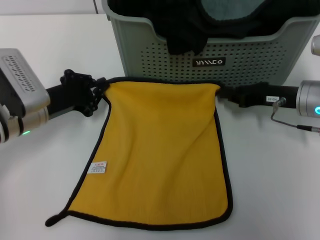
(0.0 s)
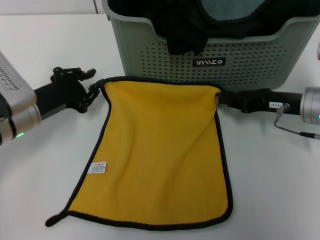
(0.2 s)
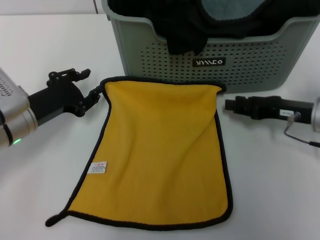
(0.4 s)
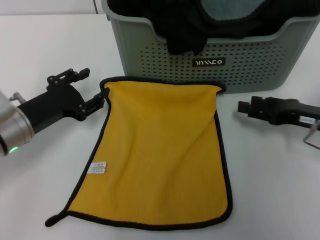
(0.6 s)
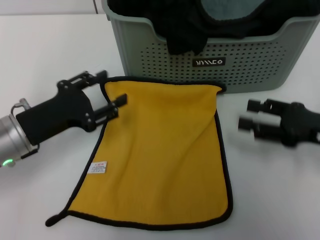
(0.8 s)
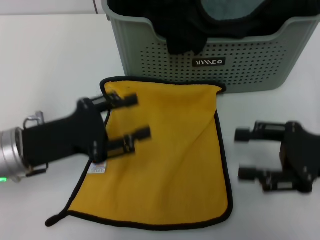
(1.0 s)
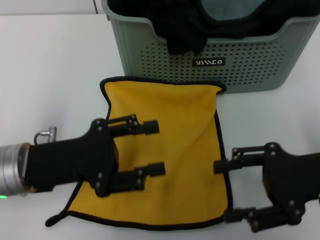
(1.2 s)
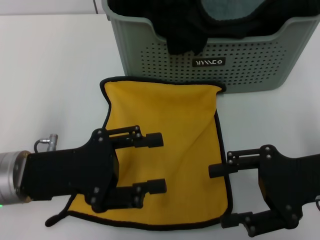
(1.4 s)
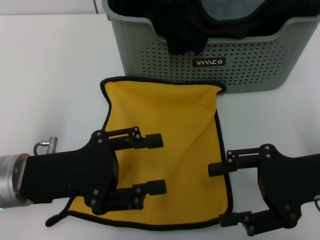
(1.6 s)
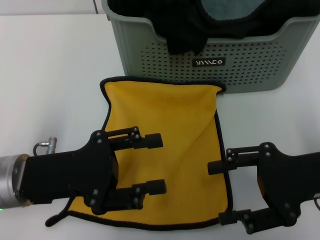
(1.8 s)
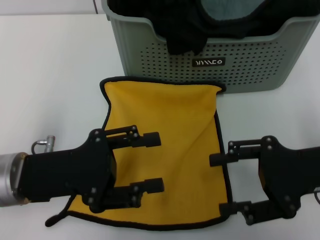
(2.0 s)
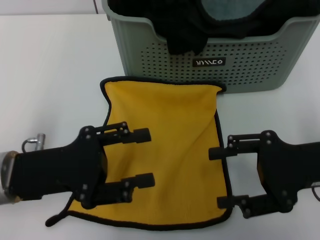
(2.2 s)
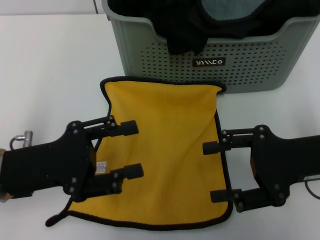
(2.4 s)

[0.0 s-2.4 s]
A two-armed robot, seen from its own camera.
Task of the whole recording: pick up the towel from the storage box and lay it flat on the table.
0.0 to 1.2 s: The right gripper is displaced backward and upward by roughly 15 cm, and opens up. The left gripper heads backward, covering roughly 10 cm, and opens.
1.2 to 2.4 s: The grippers stay close to where they were, moving slightly.

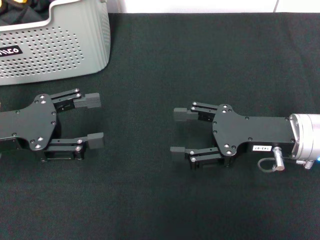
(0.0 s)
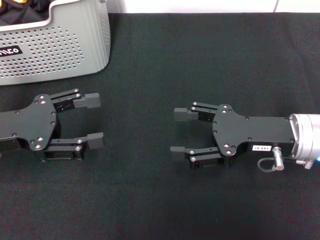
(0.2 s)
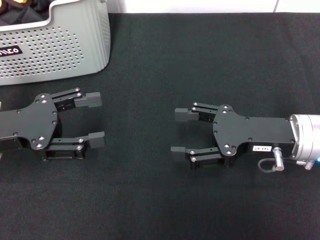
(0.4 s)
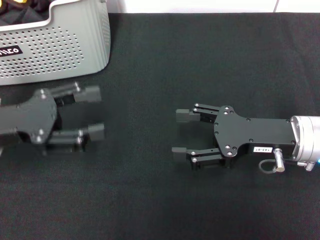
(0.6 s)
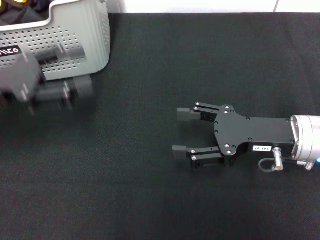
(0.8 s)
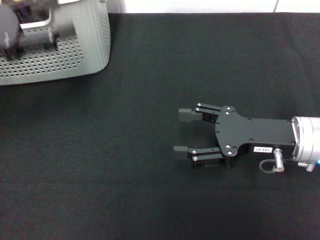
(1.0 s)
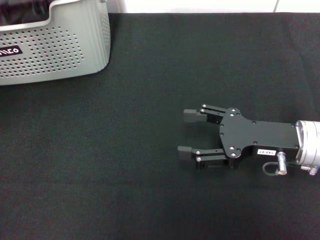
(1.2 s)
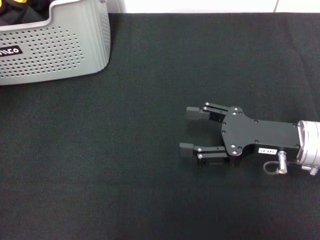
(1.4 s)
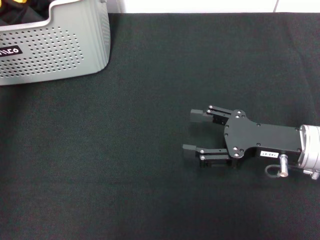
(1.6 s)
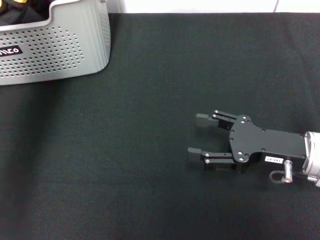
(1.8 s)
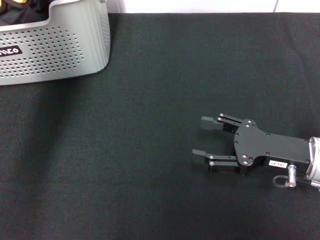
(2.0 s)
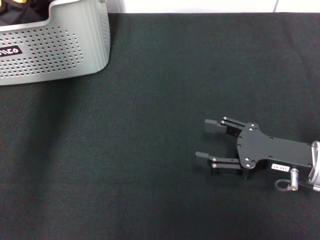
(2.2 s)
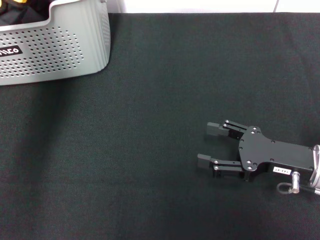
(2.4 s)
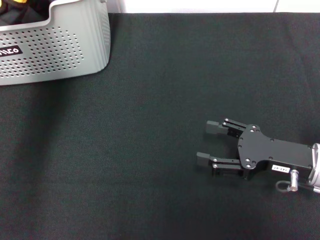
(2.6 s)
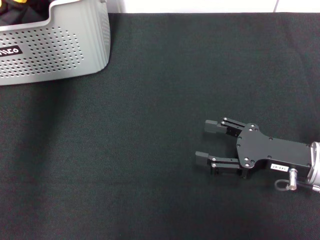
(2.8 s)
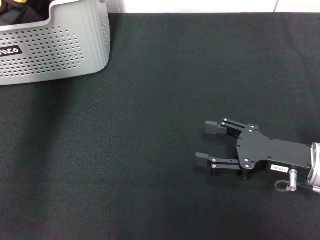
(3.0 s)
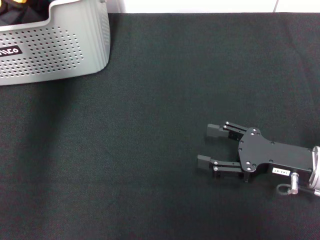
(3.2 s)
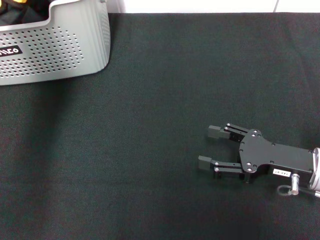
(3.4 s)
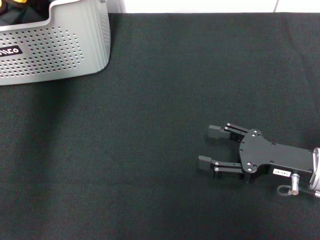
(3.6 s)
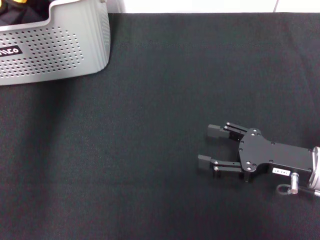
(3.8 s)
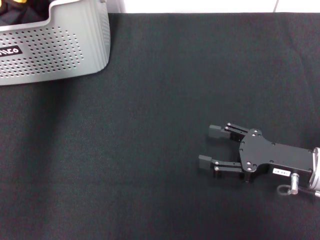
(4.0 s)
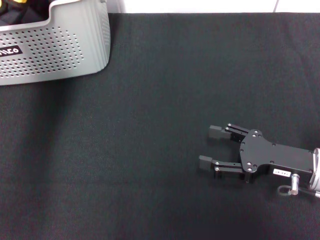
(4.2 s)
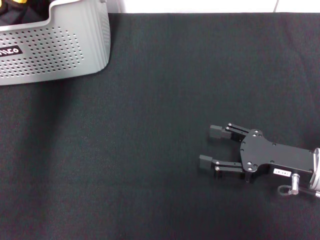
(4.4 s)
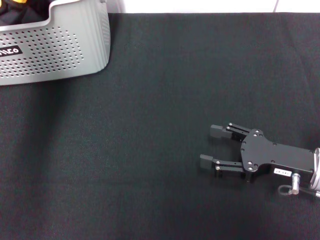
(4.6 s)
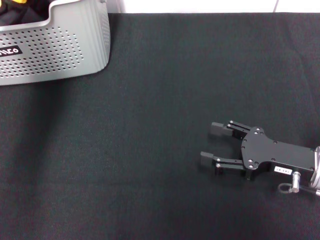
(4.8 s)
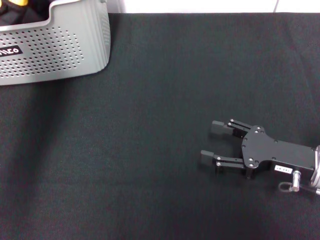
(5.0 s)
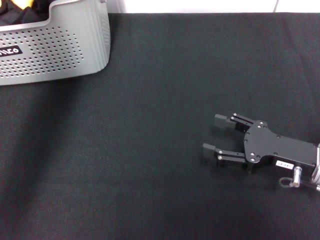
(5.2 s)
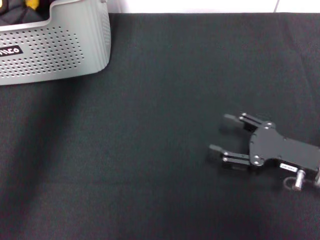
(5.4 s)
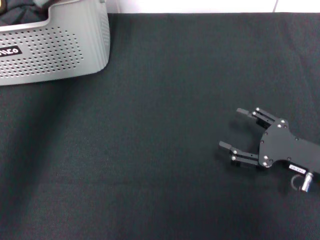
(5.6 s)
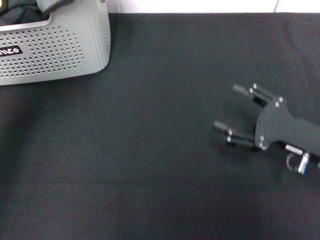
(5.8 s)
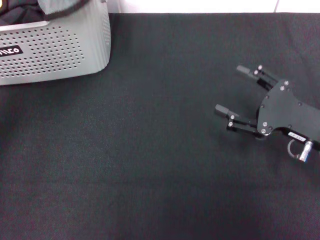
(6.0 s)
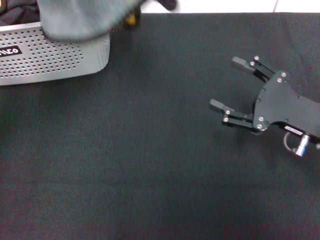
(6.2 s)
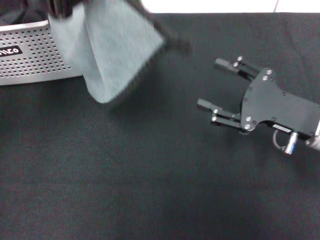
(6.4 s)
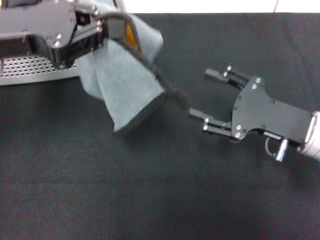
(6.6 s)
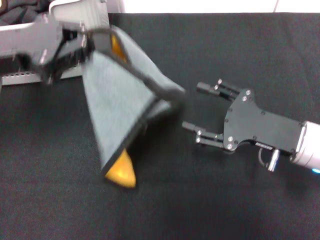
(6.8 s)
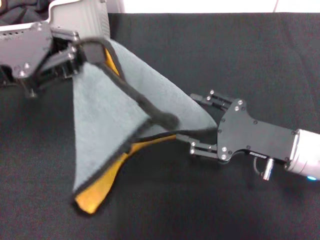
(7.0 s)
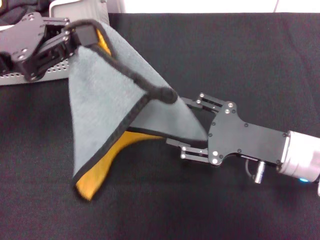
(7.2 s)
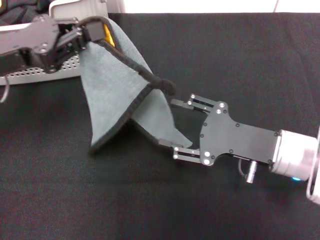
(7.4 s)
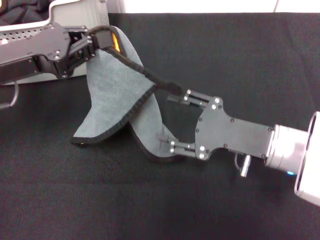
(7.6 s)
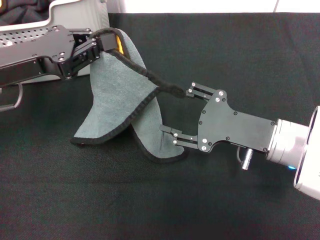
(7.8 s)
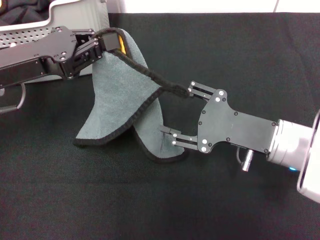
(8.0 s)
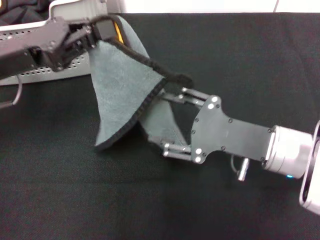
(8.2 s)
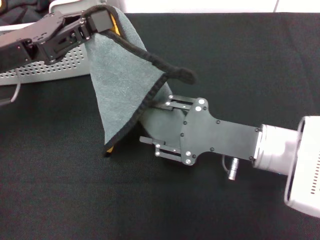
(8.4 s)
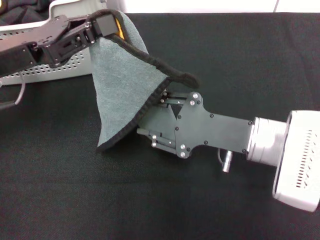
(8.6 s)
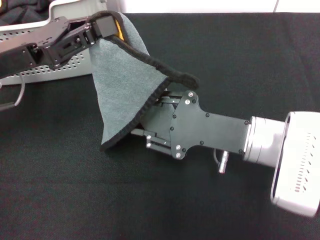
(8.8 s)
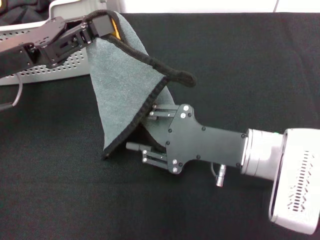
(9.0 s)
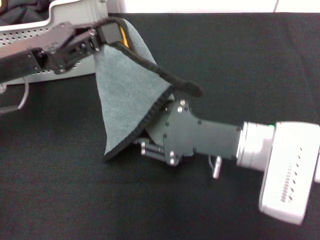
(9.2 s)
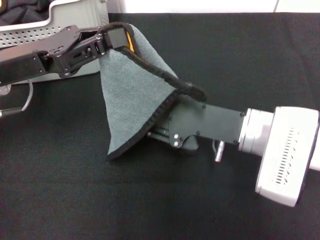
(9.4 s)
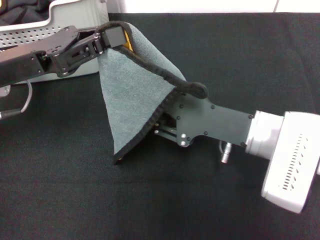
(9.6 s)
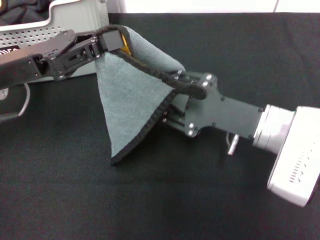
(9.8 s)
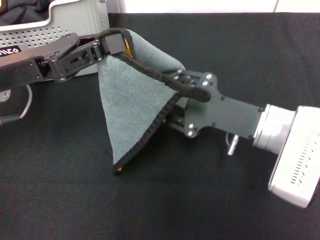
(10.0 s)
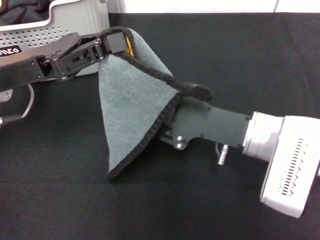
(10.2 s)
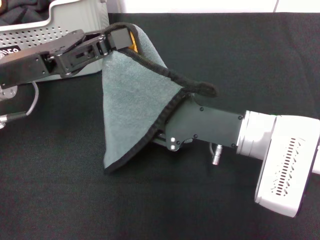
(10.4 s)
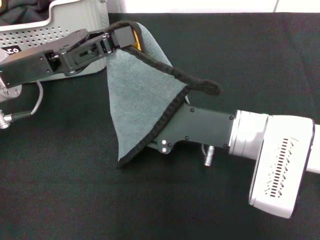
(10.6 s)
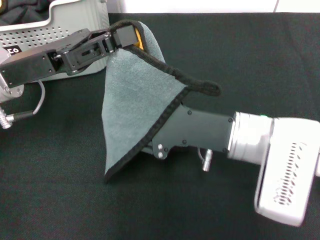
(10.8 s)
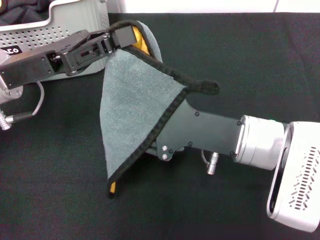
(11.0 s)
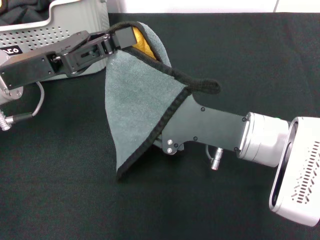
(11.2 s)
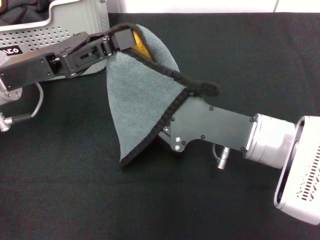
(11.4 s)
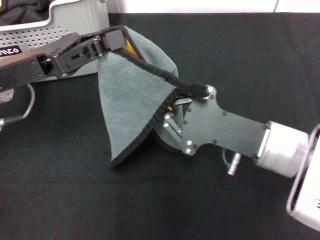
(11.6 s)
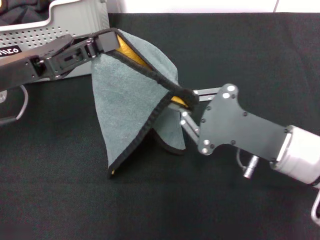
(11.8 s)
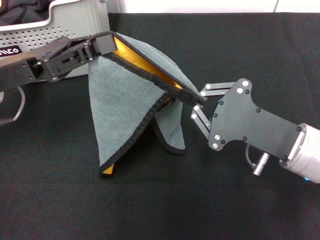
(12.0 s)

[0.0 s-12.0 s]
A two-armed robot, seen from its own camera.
Task of the whole recording: pick up the towel from the storage box and lay it flat on the black tablecloth.
Step, 0.0 to 4.4 s: Pick up a towel with the left gripper.
Step, 4.6 to 11.6 s: Spread the towel flat with the left gripper.
0.0 to 1.6 s: The left gripper travels upward and forward by roughly 20 cm.
1.6 to 3.0 s: The left gripper travels forward and to the right by roughly 10 cm.
4.4 to 6.0 s: The left gripper shifts roughly 20 cm backward and upward, and closes up.
6.0 to 7.6 s: The left gripper moves downward, some 15 cm. The right gripper heads to the left, covering about 5 cm.
10.4 to 12.0 s: The right gripper is displaced to the right by approximately 5 cm, and closes up.

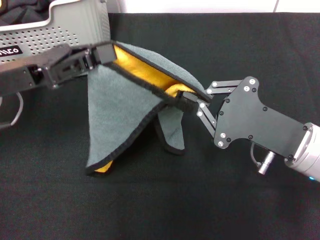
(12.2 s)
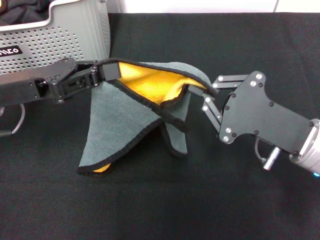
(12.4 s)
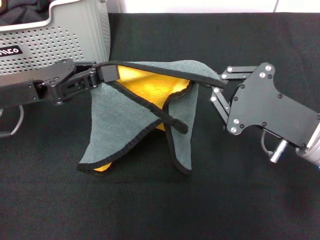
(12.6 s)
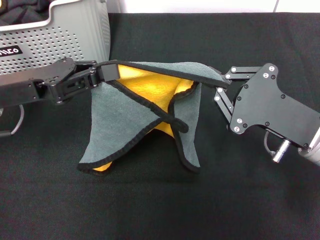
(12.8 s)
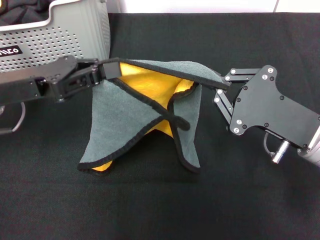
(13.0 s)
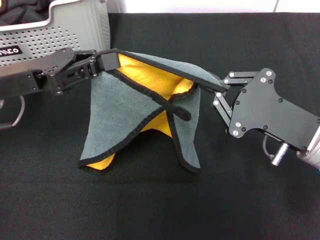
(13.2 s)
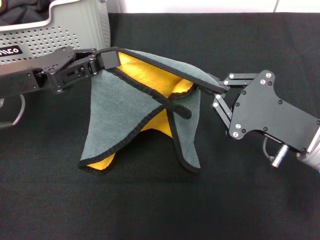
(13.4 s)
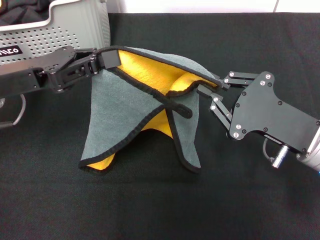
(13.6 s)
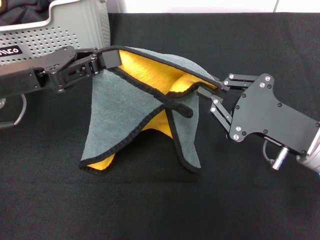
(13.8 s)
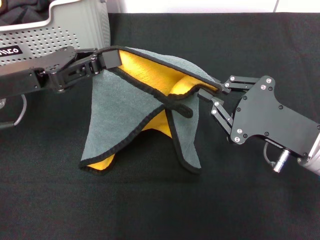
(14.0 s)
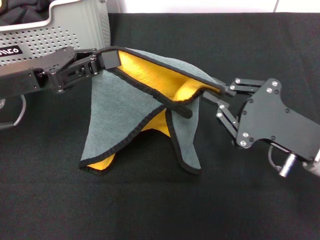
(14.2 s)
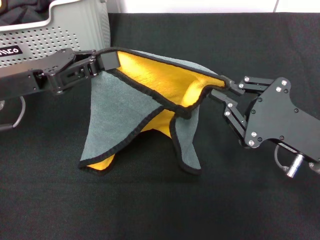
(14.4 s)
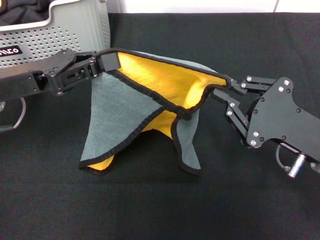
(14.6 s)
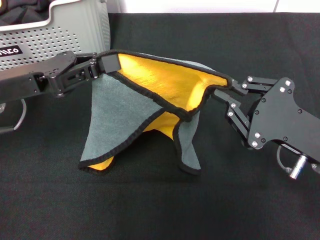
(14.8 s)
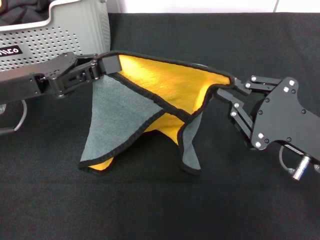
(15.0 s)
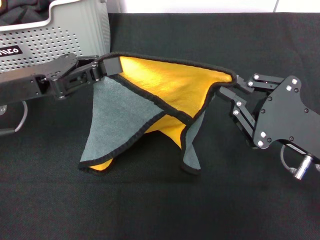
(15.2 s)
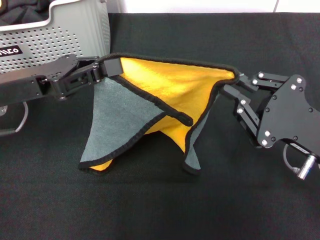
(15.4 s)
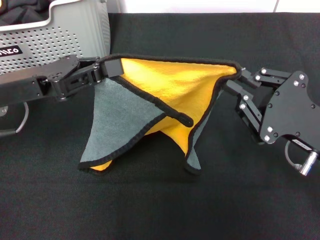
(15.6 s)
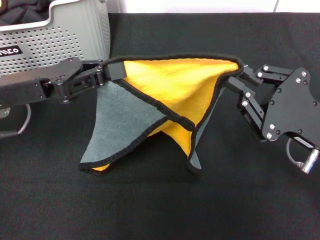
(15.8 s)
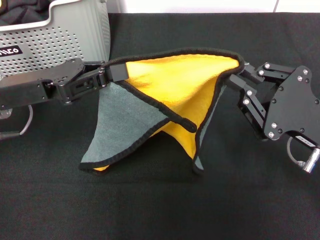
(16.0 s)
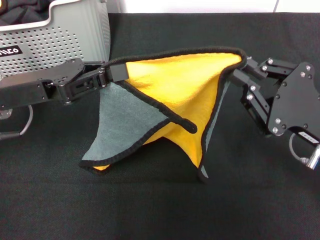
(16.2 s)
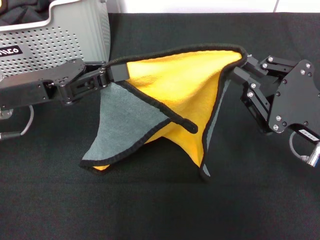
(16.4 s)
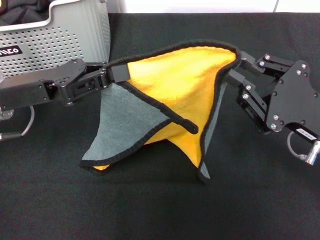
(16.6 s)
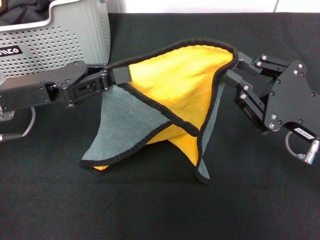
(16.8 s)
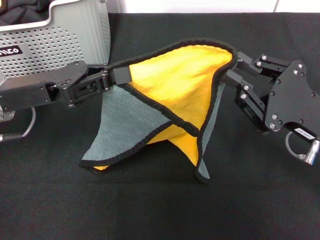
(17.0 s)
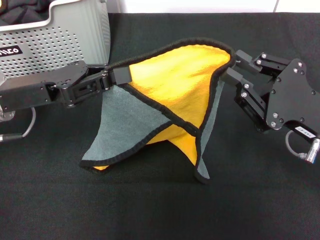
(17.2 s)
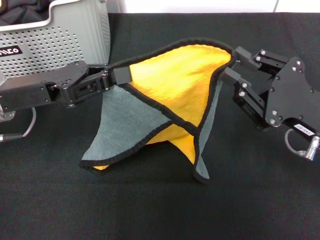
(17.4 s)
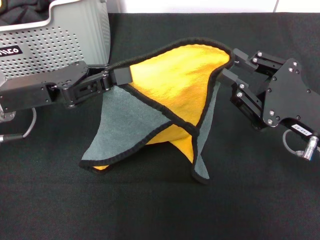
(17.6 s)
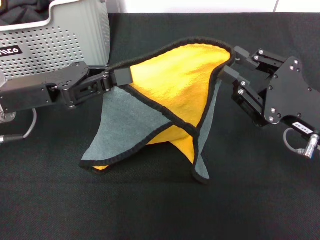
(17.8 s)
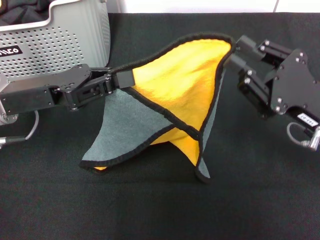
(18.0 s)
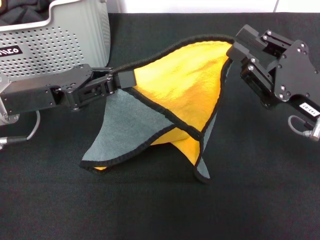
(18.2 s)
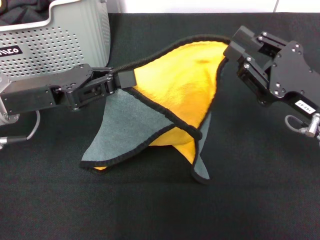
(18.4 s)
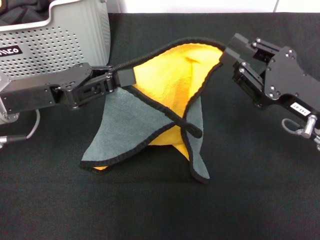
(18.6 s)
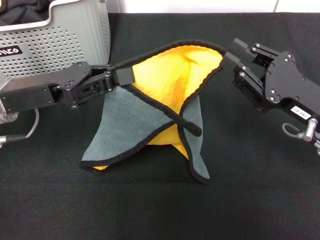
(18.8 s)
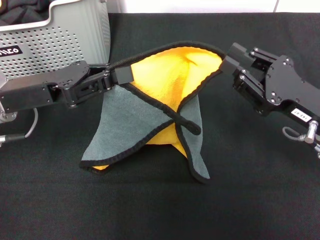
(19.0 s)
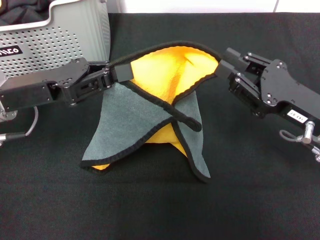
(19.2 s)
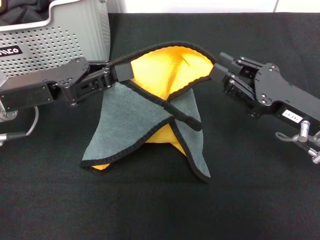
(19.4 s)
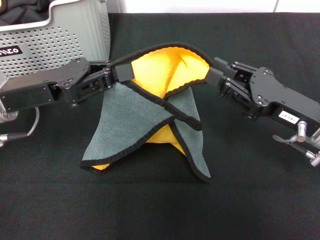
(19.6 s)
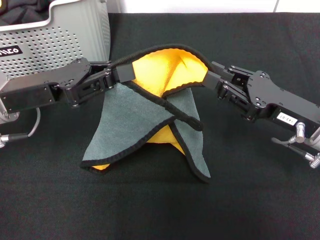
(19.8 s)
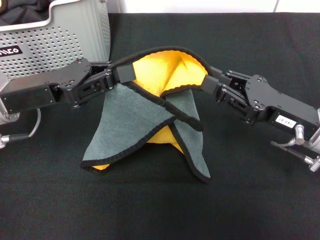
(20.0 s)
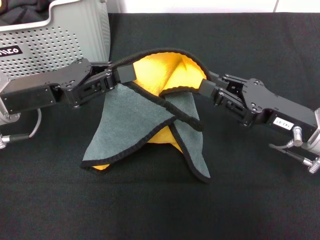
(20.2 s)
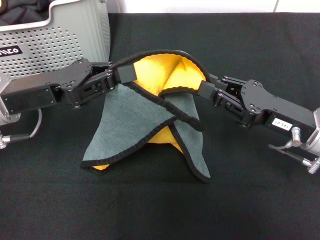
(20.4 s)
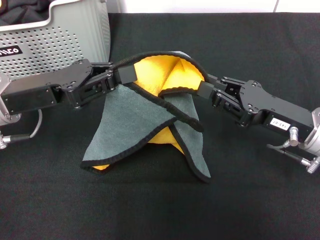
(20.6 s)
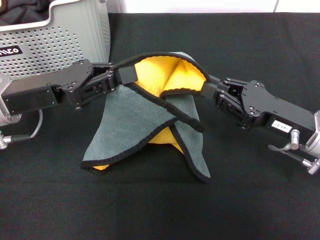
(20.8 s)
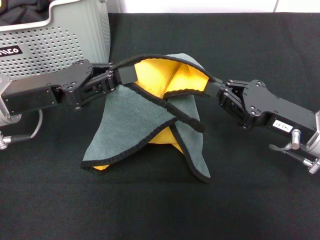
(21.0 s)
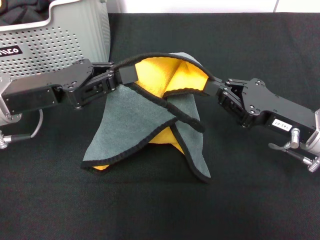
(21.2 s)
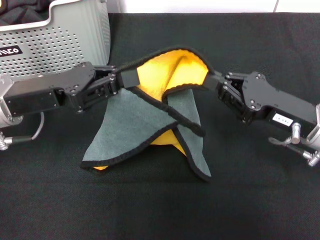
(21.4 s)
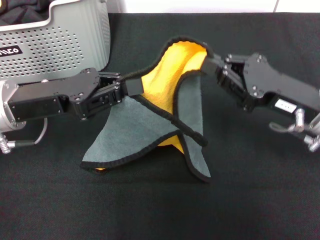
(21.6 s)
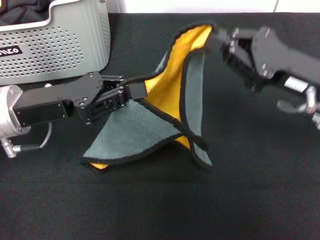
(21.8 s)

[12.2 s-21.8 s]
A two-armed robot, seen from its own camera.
Task of the whole recording: pick up the towel from the storage box and lay it flat on the black tablecloth.
12.2 to 17.0 s: The grippers move only a little.
17.0 to 18.6 s: The grippers stay close to where they were, moving slightly.
20.2 to 21.8 s: The right gripper heads upward, covering about 5 cm.
